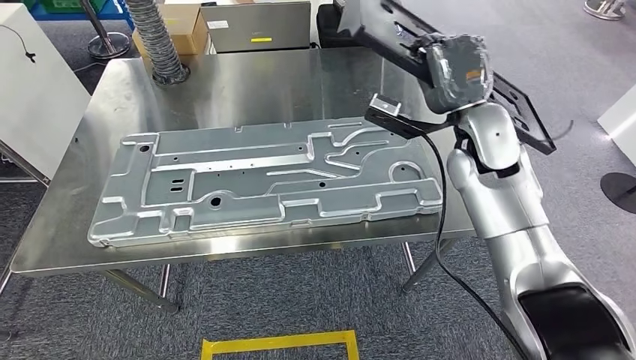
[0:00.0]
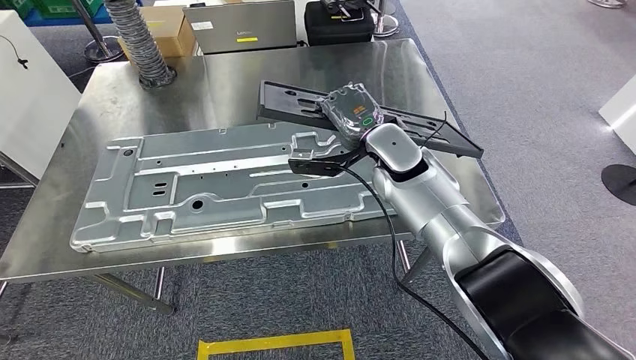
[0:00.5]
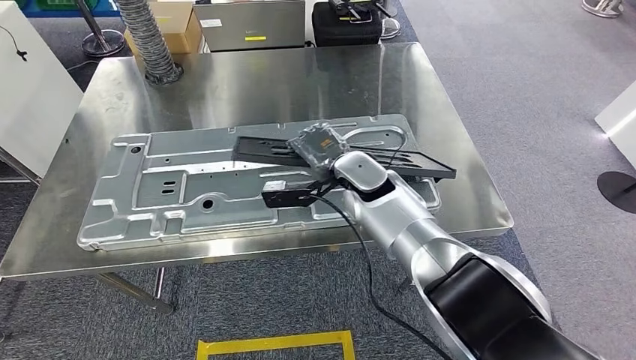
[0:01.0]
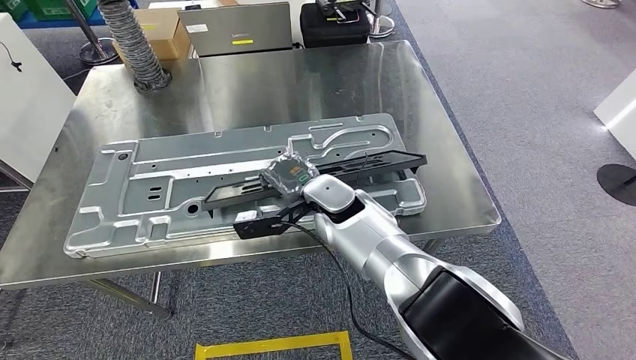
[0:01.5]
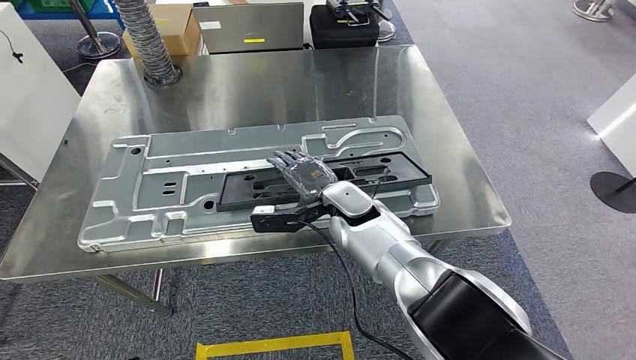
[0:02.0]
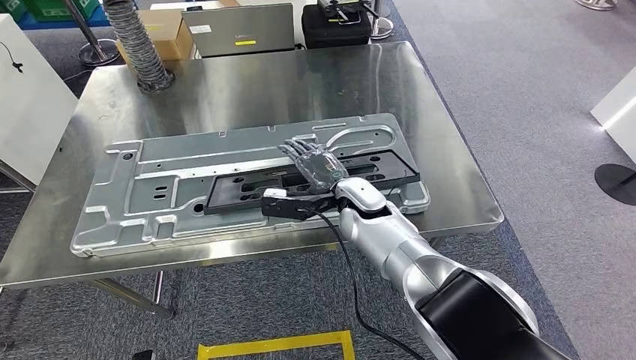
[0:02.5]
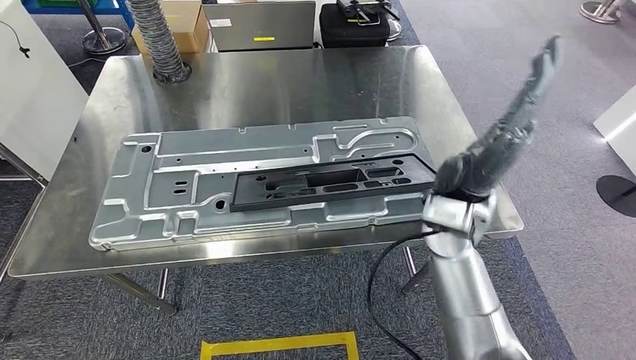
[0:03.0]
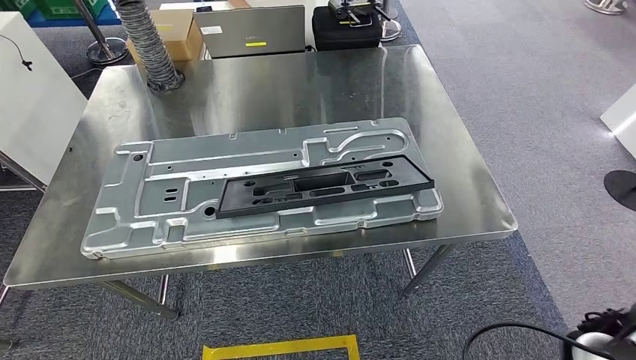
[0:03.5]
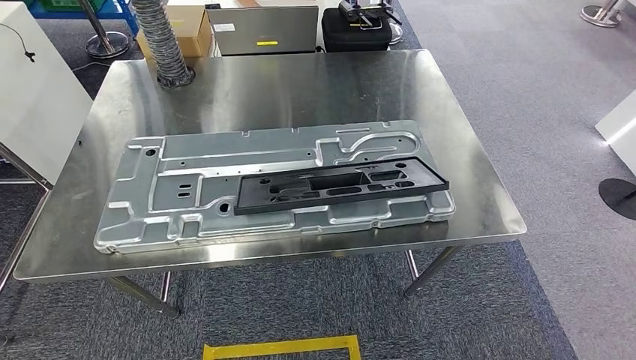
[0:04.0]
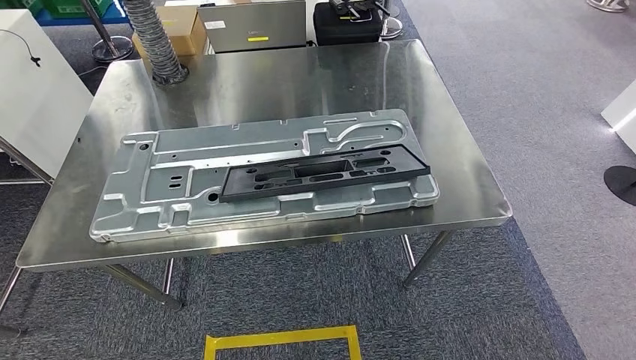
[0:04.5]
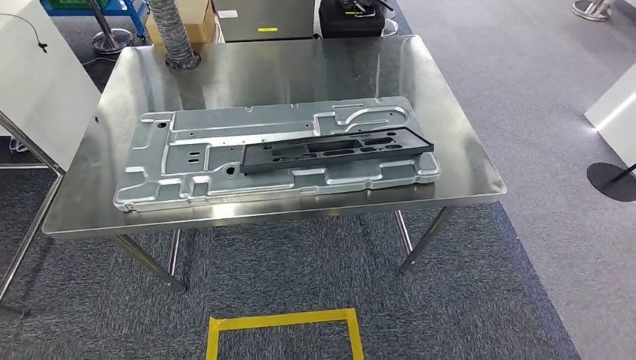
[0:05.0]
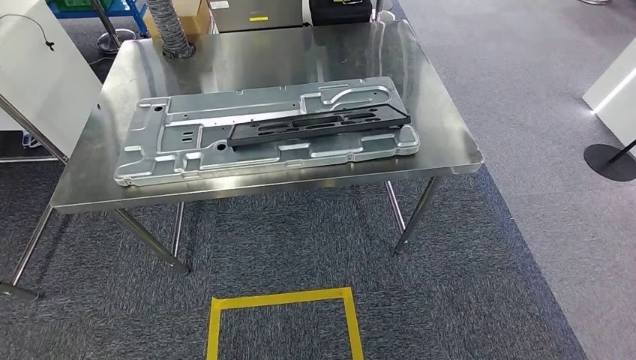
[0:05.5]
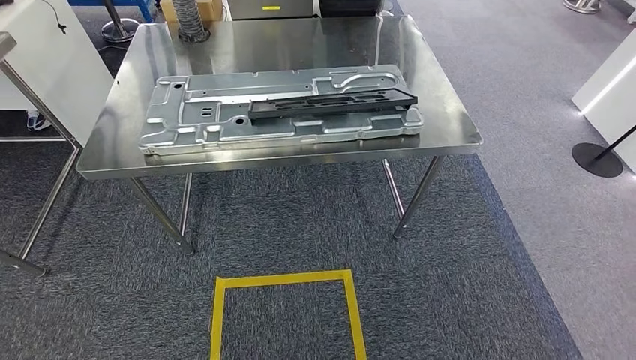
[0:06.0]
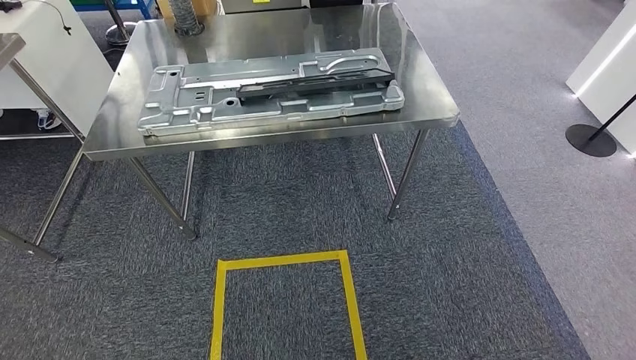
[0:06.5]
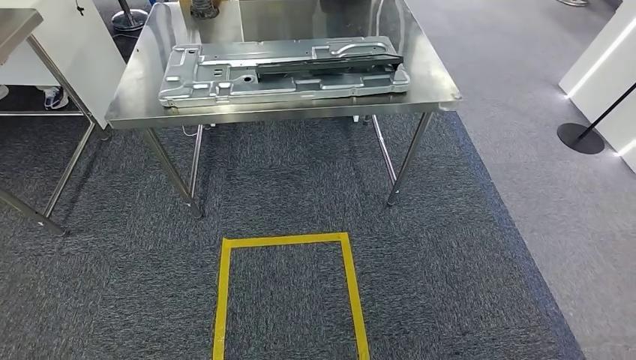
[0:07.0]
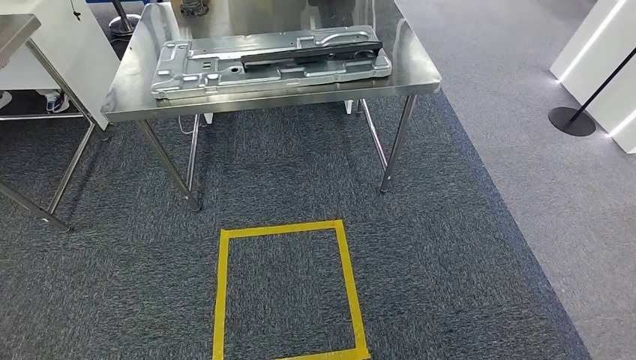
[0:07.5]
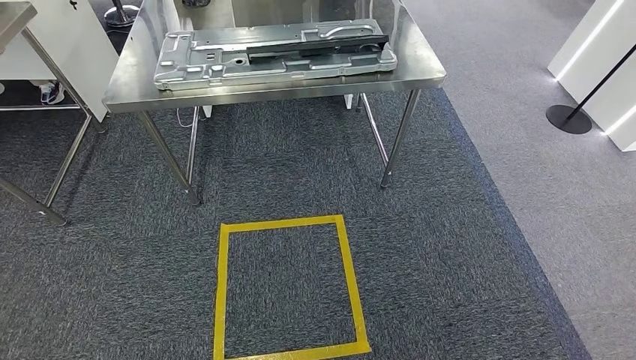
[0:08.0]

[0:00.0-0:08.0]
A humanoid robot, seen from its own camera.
Step, 0:00.0 to 0:04.5: Insert the large material into the corresponding hole on the workbench.
Step, 0:05.0 to 0:08.0: Move to the initial position of the shelf.
